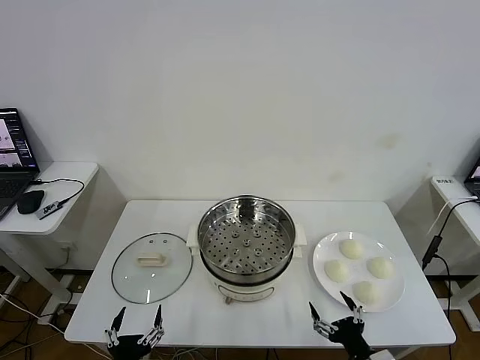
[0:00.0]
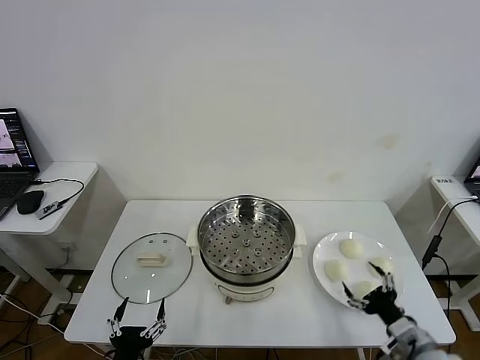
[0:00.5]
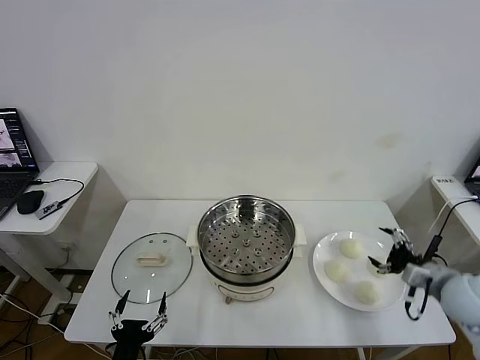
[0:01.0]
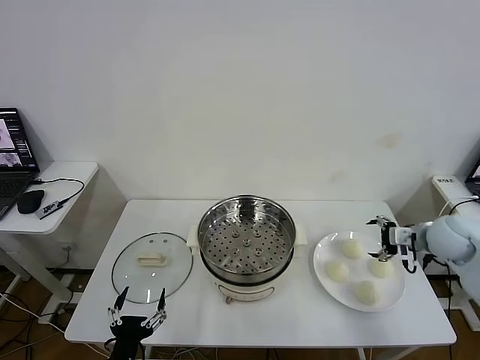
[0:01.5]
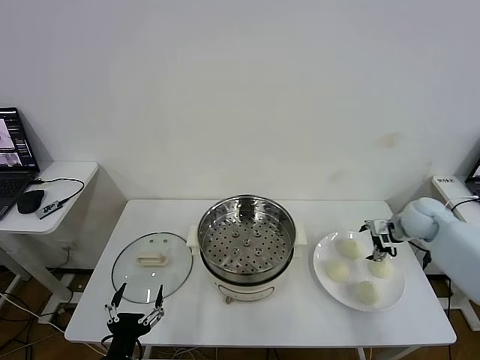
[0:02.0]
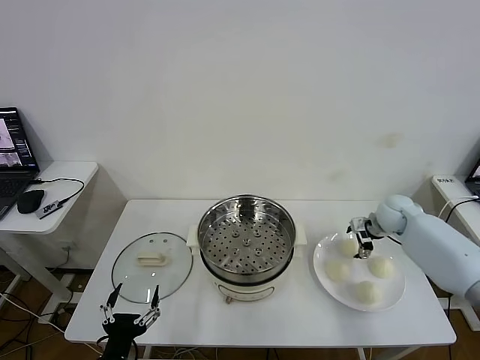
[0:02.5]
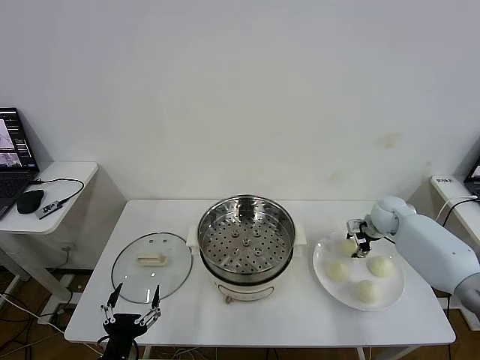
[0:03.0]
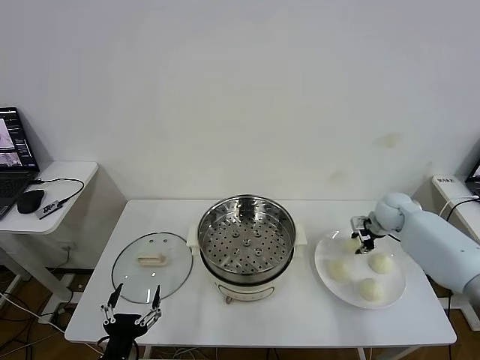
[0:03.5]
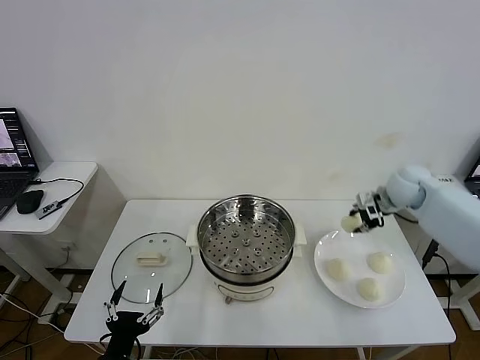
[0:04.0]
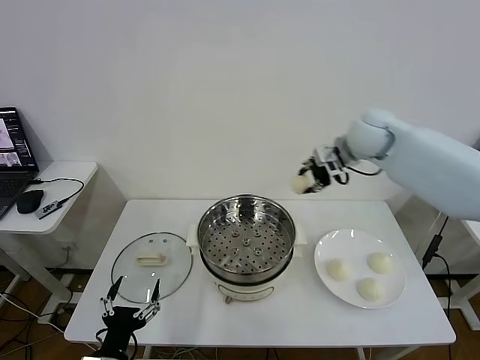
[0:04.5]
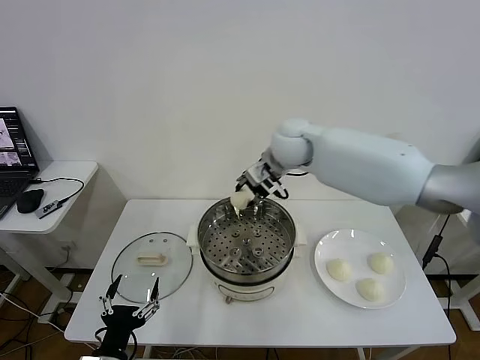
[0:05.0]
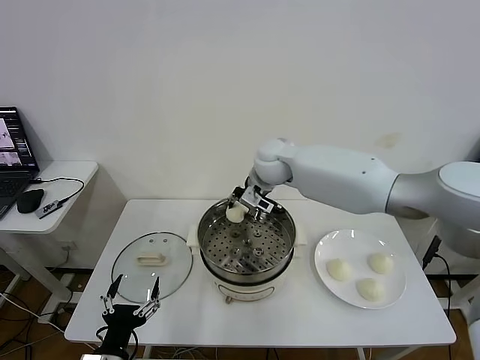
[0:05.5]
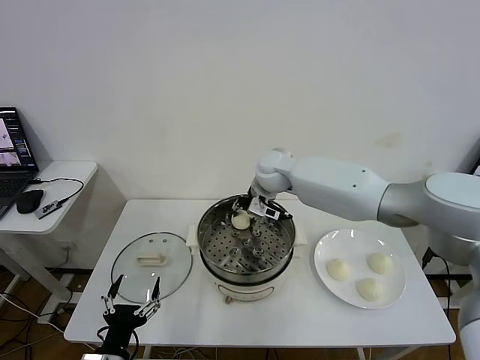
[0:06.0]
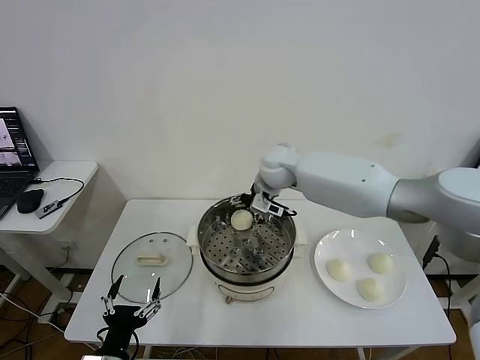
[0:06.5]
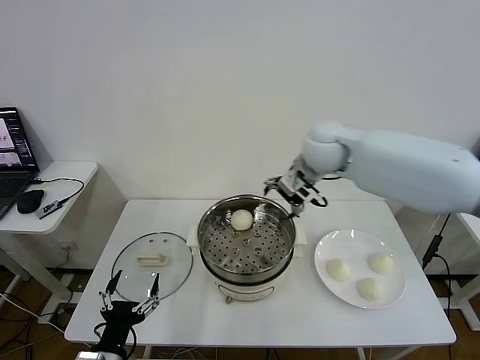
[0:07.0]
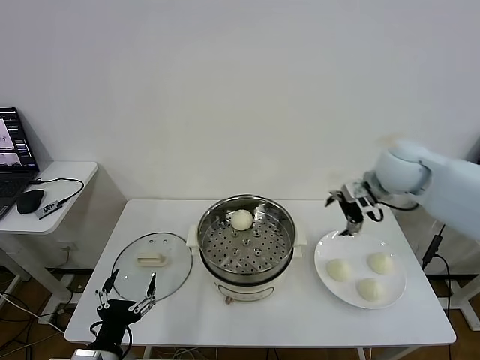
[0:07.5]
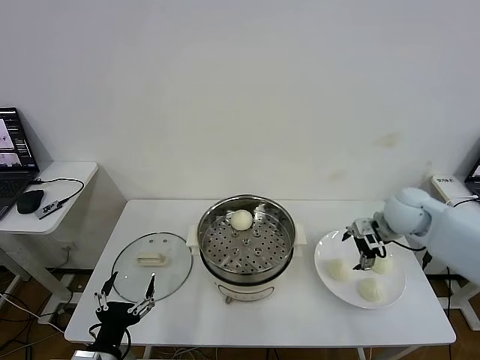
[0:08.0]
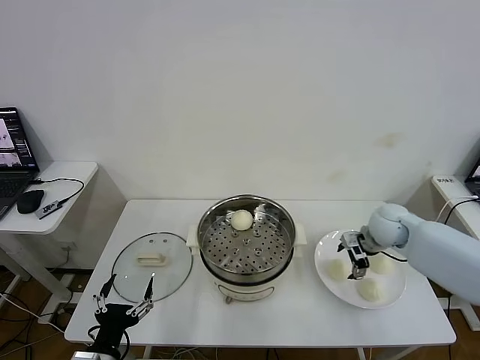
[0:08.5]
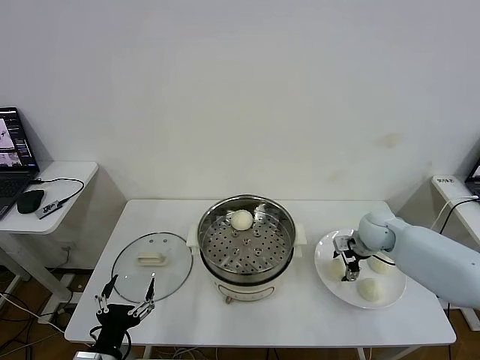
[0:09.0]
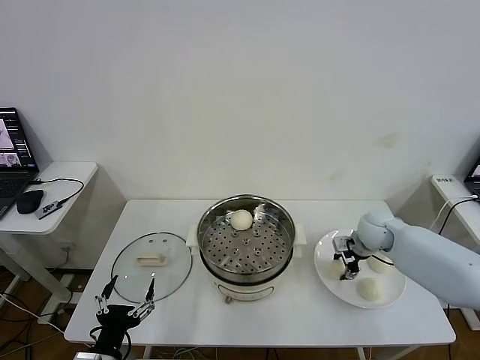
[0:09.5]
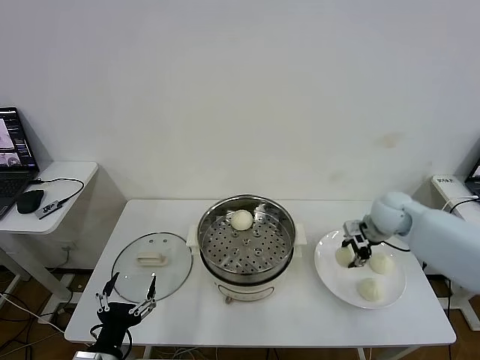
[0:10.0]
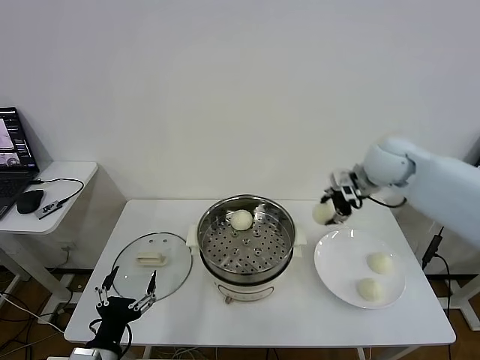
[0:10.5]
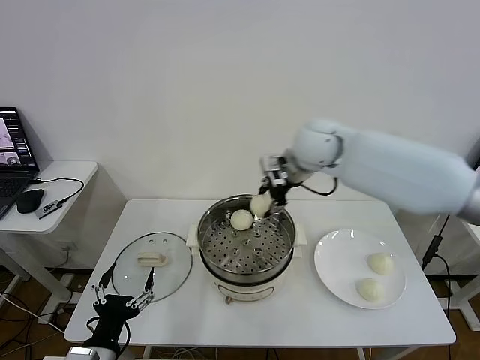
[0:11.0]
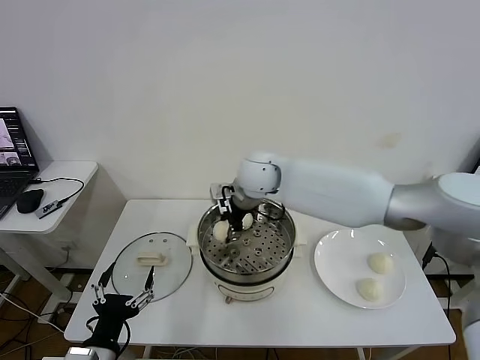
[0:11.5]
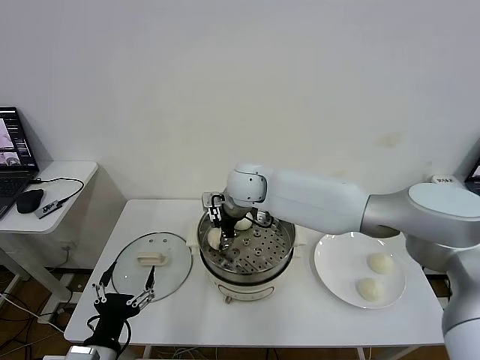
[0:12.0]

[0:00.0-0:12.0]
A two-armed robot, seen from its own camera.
Task of the whole recording: take steamed baozi put them in steamer then cover it.
Step, 0:00.0 to 0:03.0: Grasp the baozi in the plate with right gripper.
Step, 0:03.5 to 0:06.0: Place the baozi on the steamer with right gripper.
Step, 0:06.5 to 0:09.0: Grasp the baozi in the plate with right gripper.
0:02.0 to 0:04.0: The right gripper is displaced upward by about 10 cm, and closes.
0:04.0 to 0:06.0: The right gripper shifts roughly 30 cm to the left.
0:06.0 to 0:08.0: The right gripper shifts approximately 30 cm to the right, and opens.
0:08.0 to 0:10.0: The right gripper moves some 10 cm downward and comes back, and closes its fingers.
0:10.0 to 0:12.0: The right gripper is displaced to the left by some 35 cm.

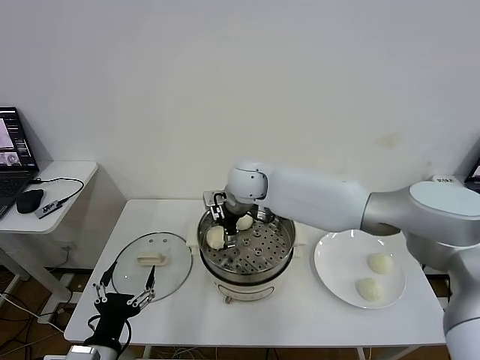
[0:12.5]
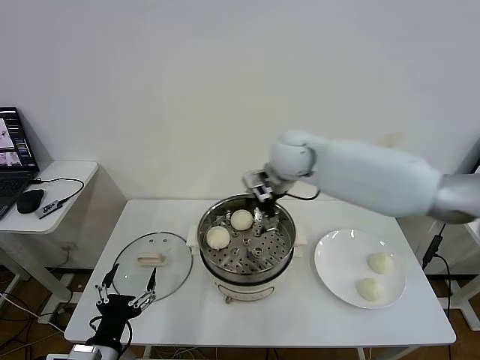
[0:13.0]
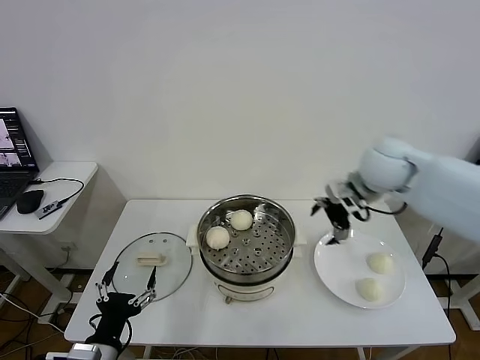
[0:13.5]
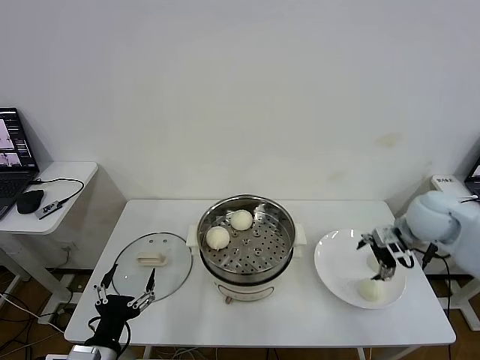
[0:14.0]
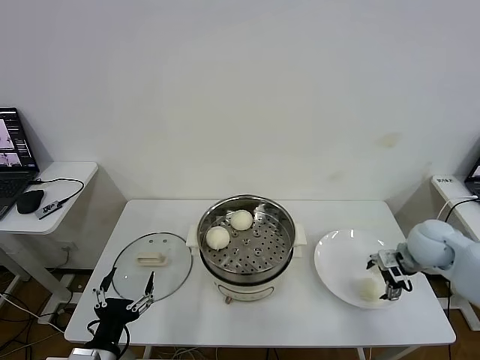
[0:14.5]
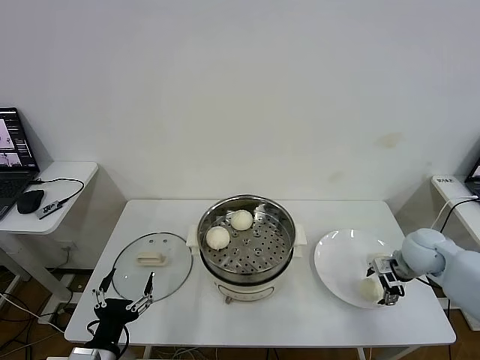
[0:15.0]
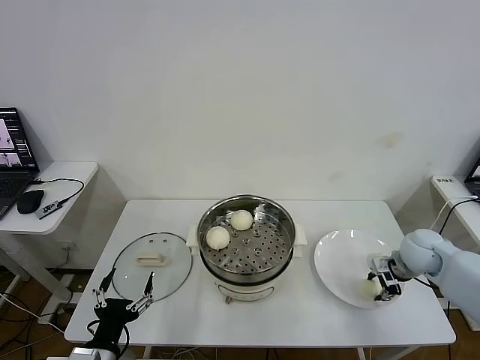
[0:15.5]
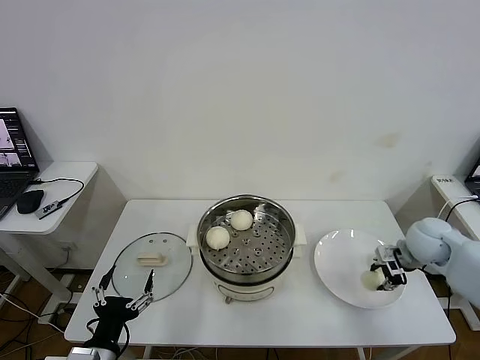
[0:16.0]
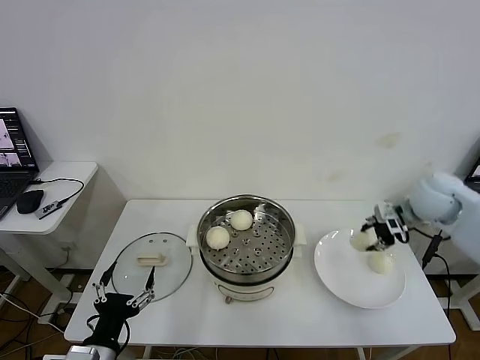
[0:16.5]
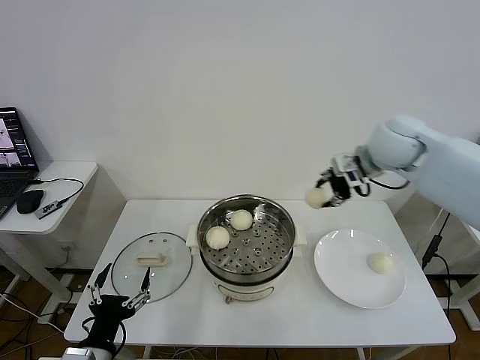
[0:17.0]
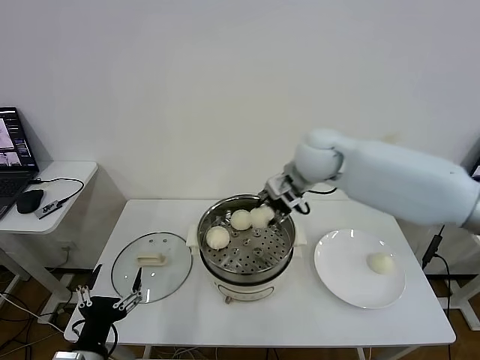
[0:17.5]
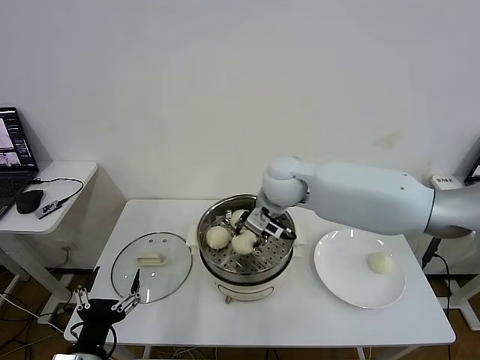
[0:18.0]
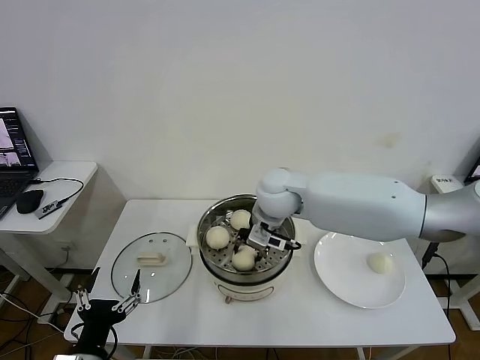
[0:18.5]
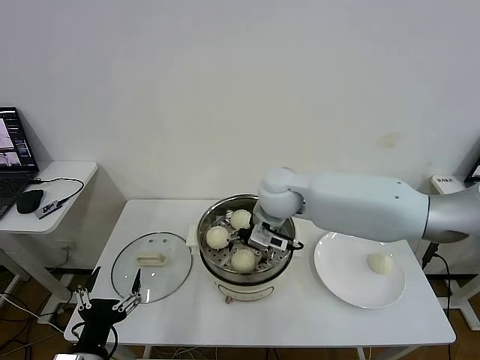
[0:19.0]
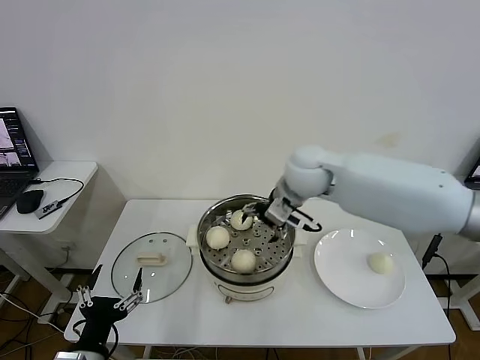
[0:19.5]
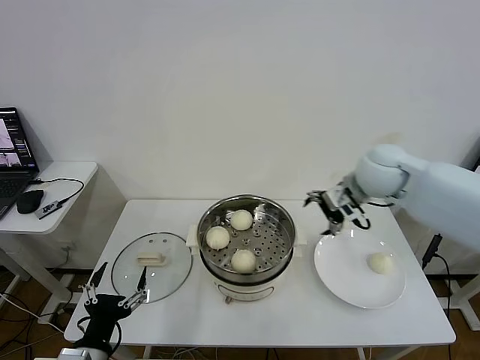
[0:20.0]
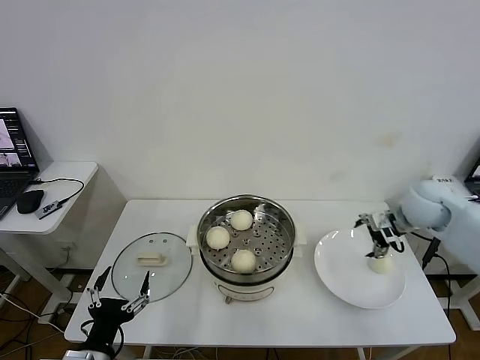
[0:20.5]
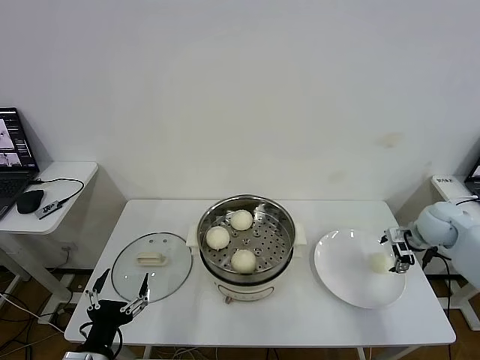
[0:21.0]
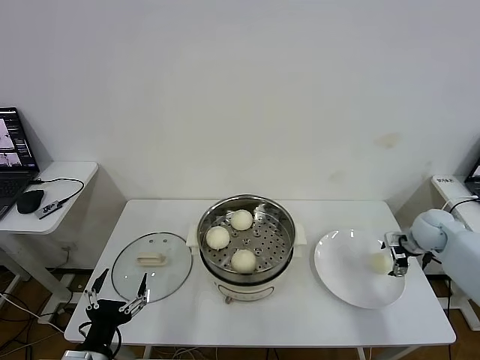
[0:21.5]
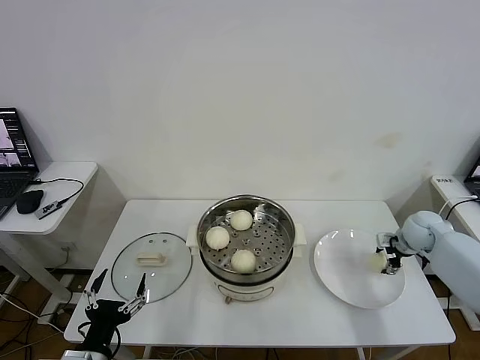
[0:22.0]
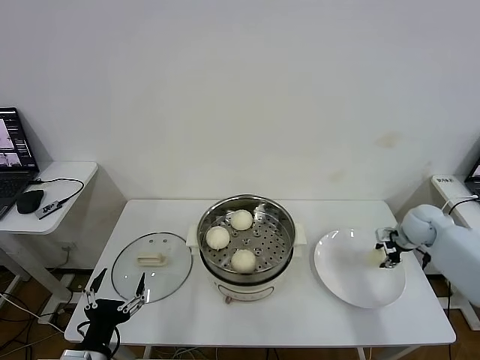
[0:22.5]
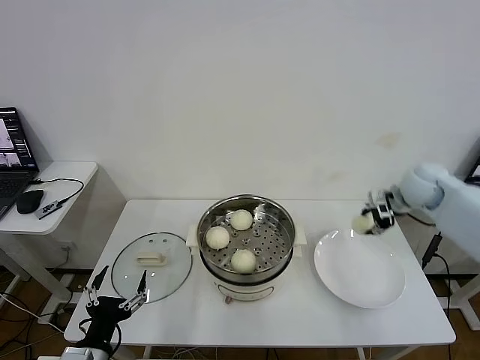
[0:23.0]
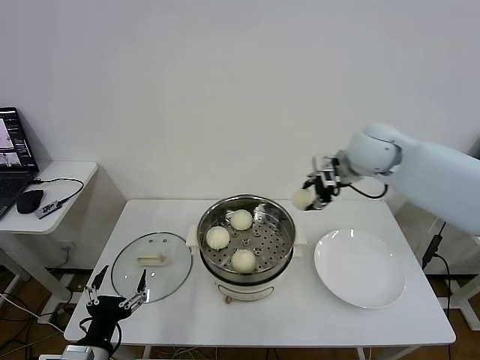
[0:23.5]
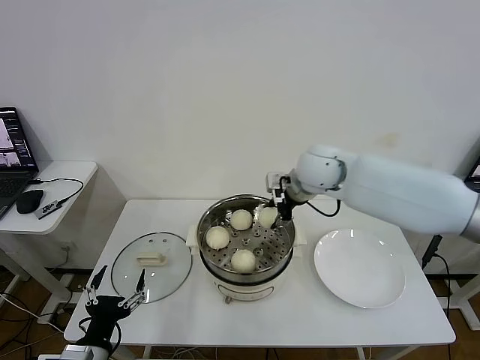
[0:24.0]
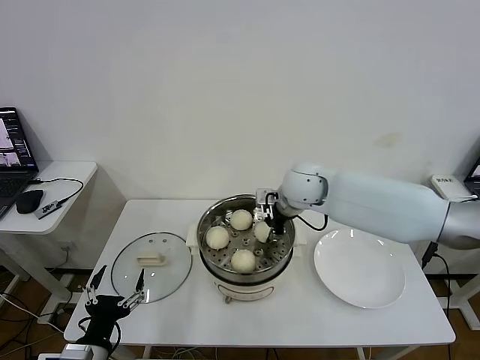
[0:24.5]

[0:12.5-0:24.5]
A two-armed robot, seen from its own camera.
Task of the whole recording: take steamed baozi put them in steamer then cover it.
Step, 0:12.5 to 0:15.0: Grasp the baozi in the plate with right gripper.
Step, 0:15.5 to 0:18.5: Place the baozi on the steamer with right gripper.
Step, 0:19.0 to 0:22.0: Grasp the baozi in the plate with right gripper.
0:12.5 to 0:14.5: The right gripper is displaced to the right by roughly 40 cm.
0:14.5 to 0:16.5: The right gripper goes approximately 10 cm upward, and closes up.
0:16.5 to 0:18.5: The right gripper is displaced to the left by some 30 cm.
0:18.5 to 0:20.5: The right gripper heads to the right, covering roughly 30 cm, and opens.
0:20.5 to 0:22.5: The right gripper travels downward and to the right by roughly 15 cm, and closes up.
0:22.5 to 0:24.5: The right gripper is displaced to the left and upward by roughly 35 cm.

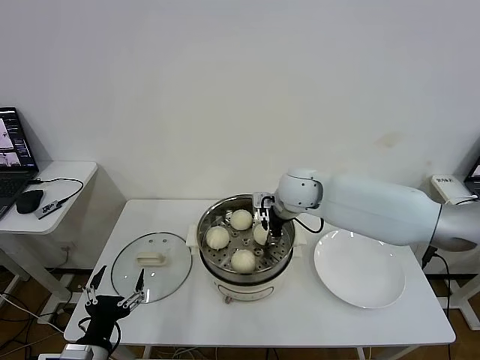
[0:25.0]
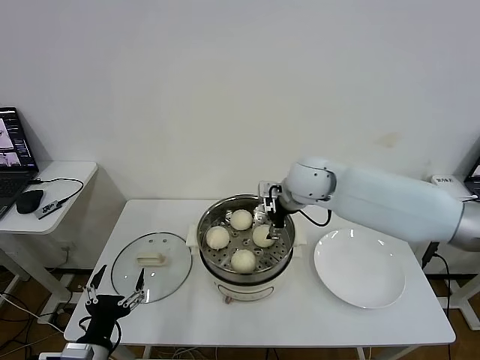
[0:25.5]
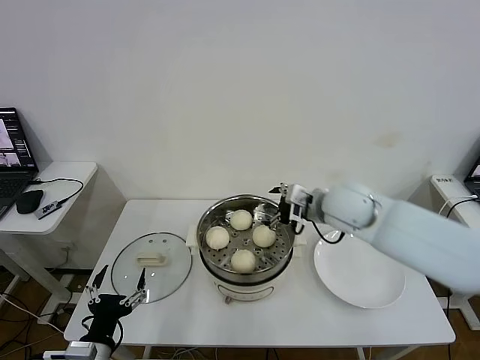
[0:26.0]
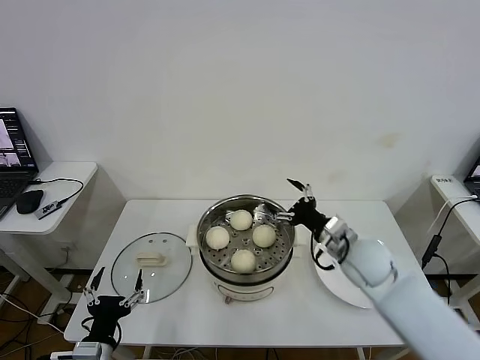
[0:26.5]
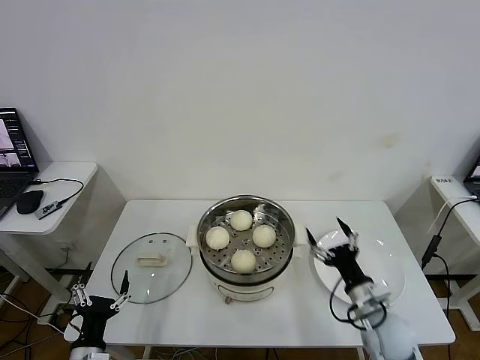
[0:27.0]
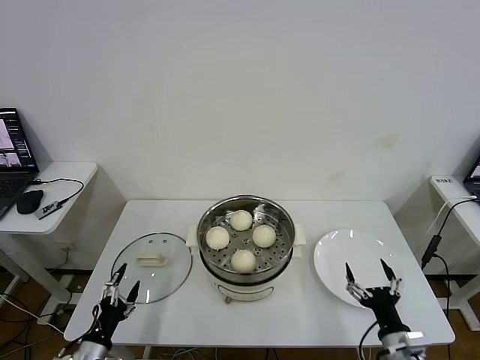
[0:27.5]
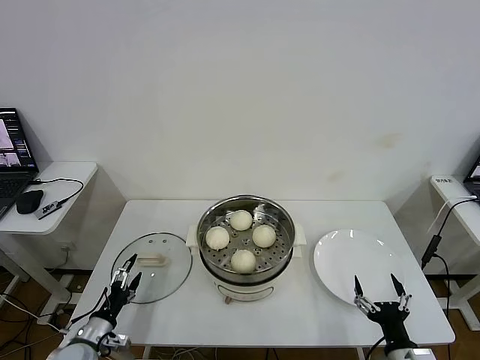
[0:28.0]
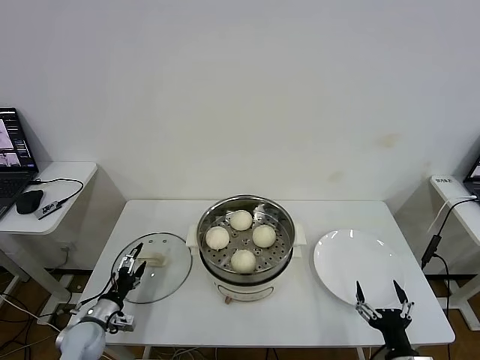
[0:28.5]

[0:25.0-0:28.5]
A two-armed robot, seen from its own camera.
Task of the whole recording: take steamed baozi put them in steamer then cover it.
0:25.0 to 0:27.0: The right gripper shifts roughly 35 cm backward, downward and to the right, and opens its fingers; the left gripper travels downward by approximately 5 cm.
0:27.0 to 0:28.5: The left gripper heads forward, to the left and downward, covering about 15 cm. Meanwhile the right gripper heads backward, covering approximately 15 cm.
